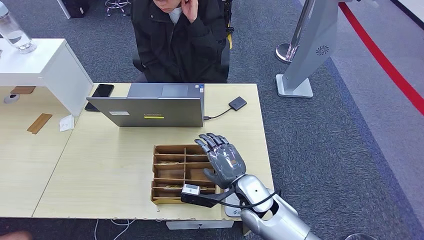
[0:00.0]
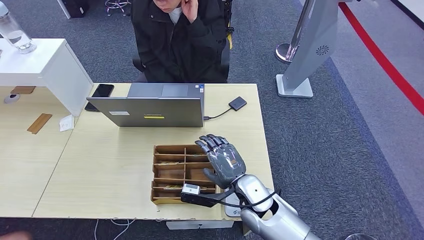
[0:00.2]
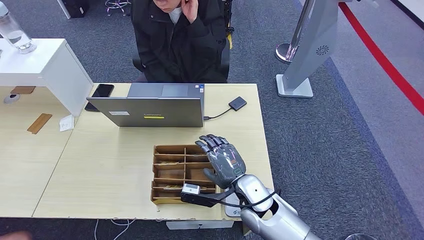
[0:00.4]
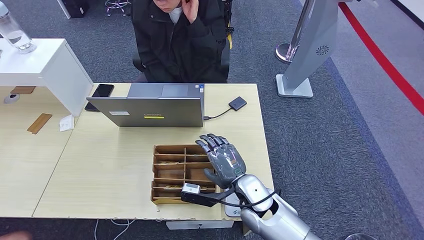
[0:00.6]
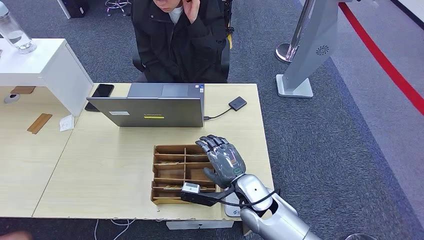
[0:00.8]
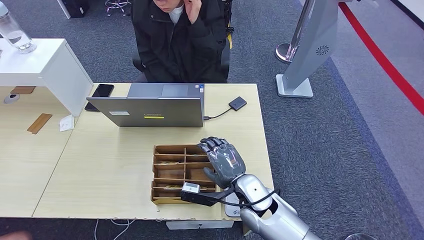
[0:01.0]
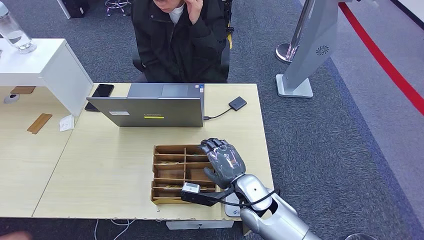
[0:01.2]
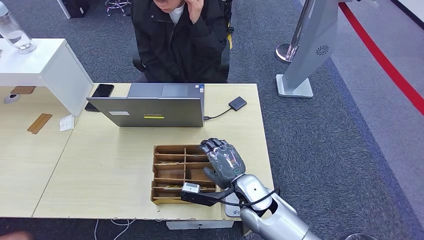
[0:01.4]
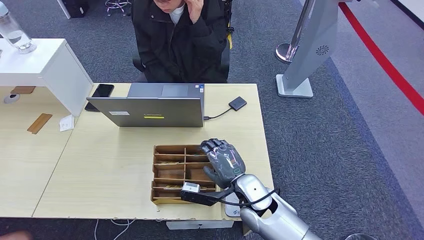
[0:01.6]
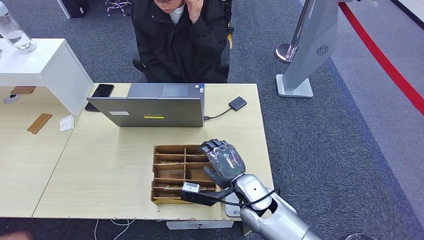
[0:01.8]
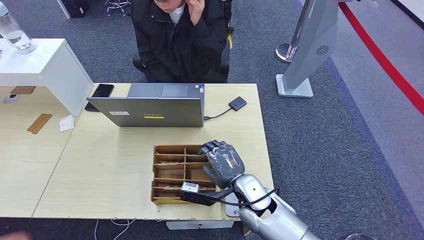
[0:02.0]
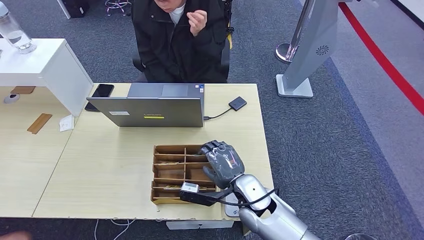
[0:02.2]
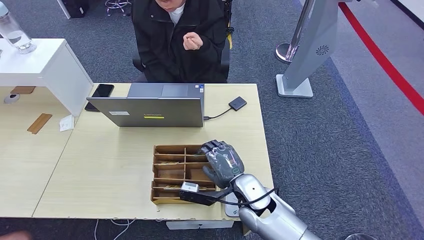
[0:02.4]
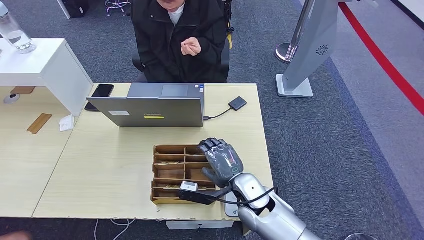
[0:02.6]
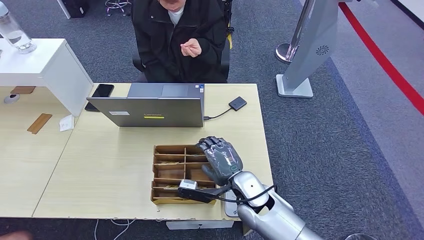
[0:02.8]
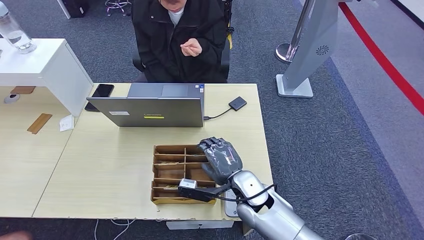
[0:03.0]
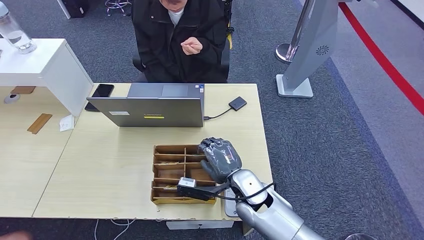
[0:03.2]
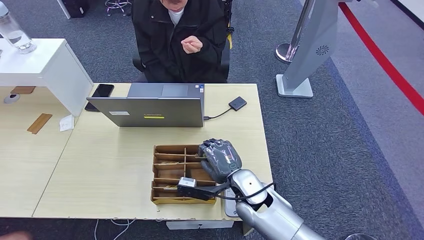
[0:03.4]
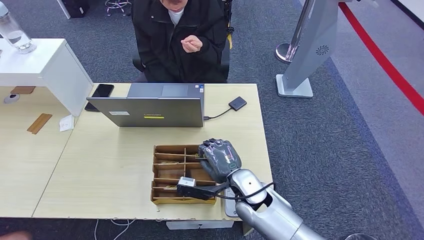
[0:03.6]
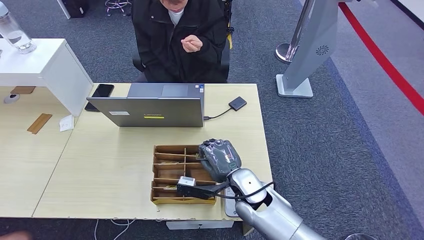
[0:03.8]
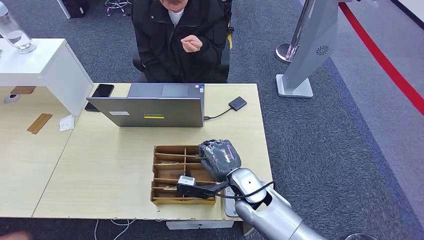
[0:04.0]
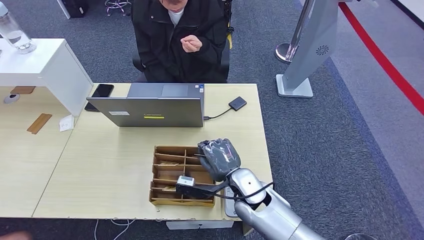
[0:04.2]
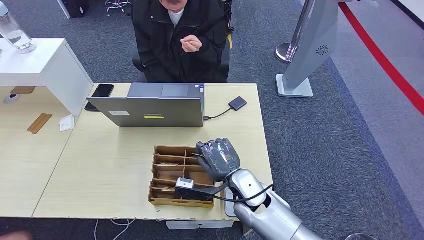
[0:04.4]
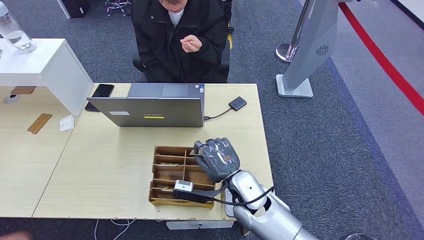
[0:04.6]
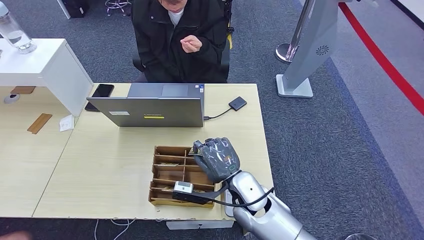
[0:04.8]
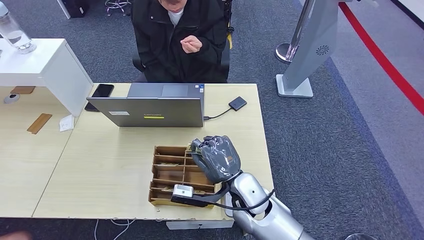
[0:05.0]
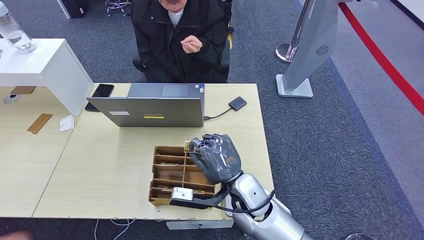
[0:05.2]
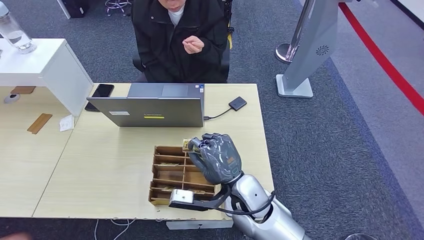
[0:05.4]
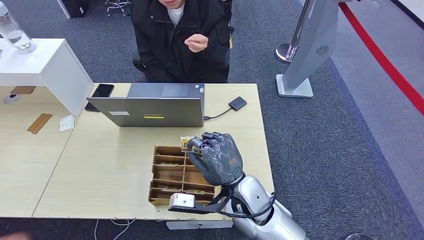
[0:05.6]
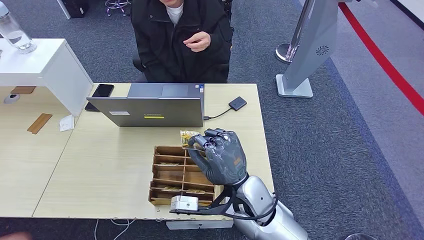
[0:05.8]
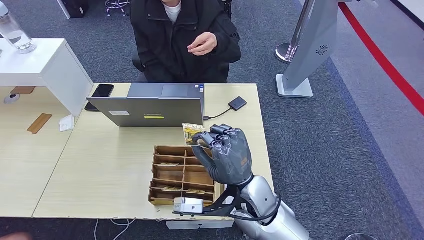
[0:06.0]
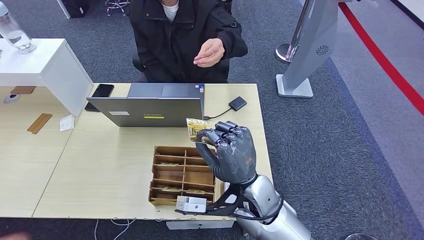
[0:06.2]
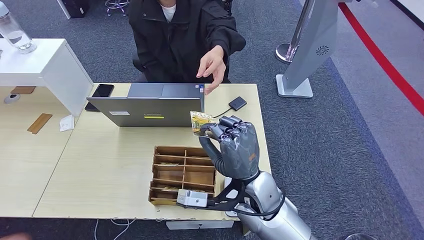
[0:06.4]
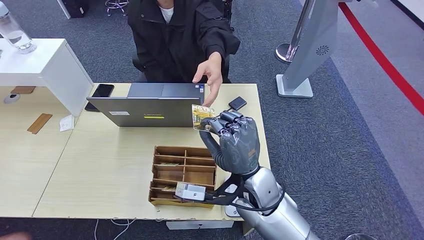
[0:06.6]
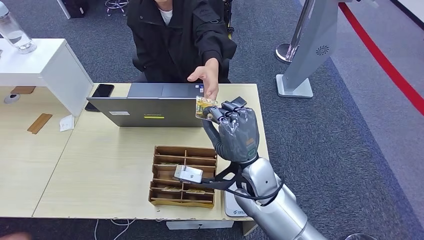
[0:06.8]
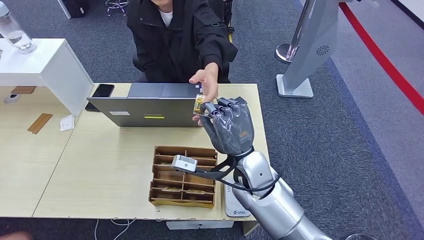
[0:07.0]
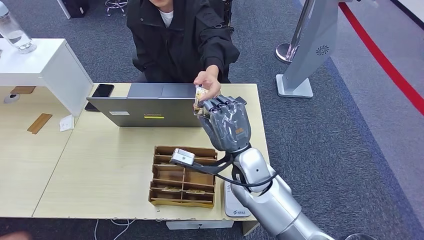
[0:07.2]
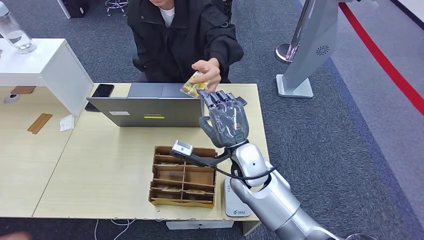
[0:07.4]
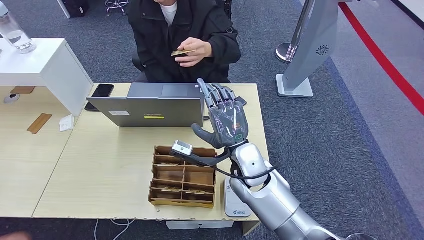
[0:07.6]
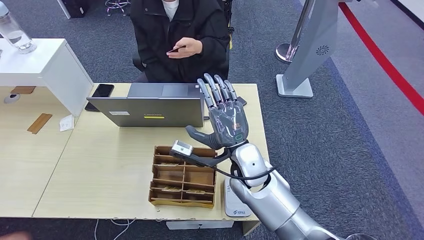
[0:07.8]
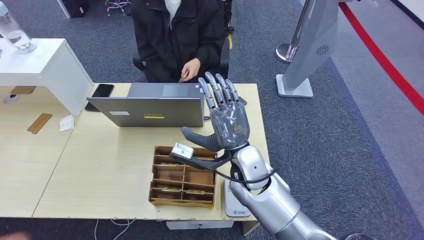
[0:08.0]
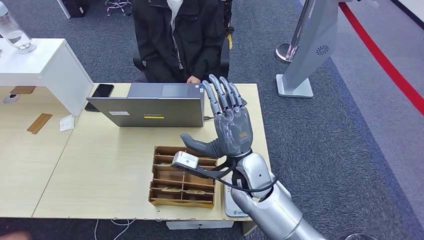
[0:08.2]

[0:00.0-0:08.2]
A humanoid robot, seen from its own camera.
Step, 0:00.0 to 0:04.2: Pick up the room key from the key card box.
Step, 0:04.4 to 0:08.2: Hand the room key to the person.
0:00.0 to 0:01.6: Both hands stay about where they are.
0:01.6 to 0:05.0: There are only small adjustments of the hands.
0:05.0 to 0:06.6: The right hand is displaced upward by roughly 5 cm.
